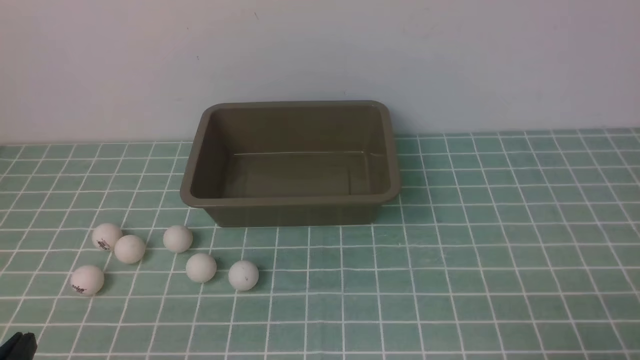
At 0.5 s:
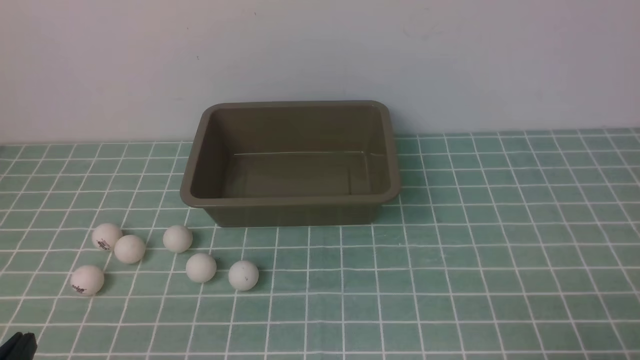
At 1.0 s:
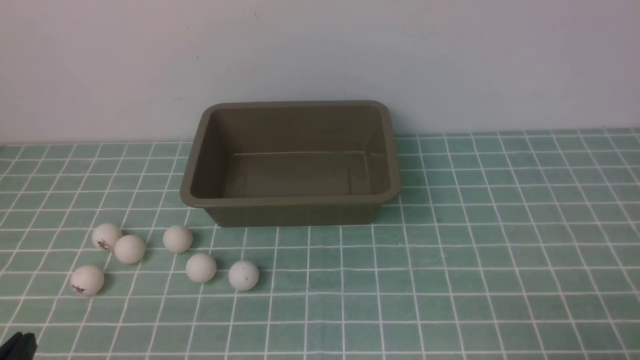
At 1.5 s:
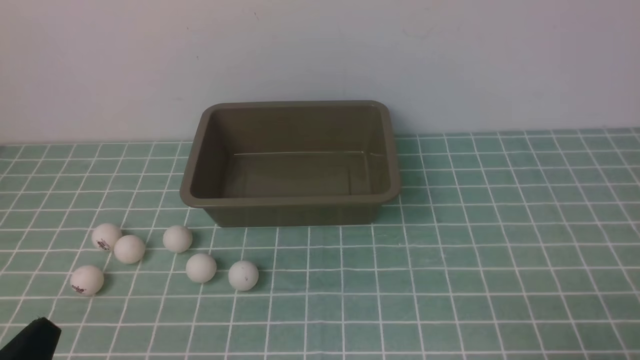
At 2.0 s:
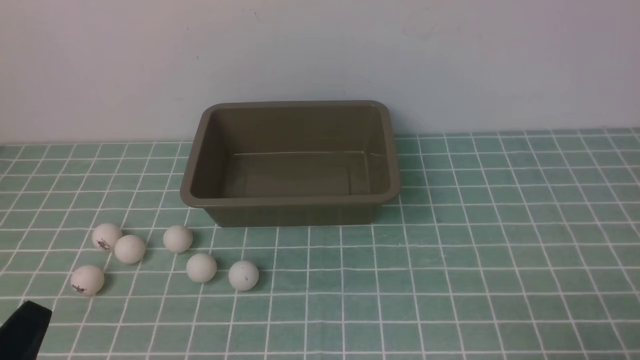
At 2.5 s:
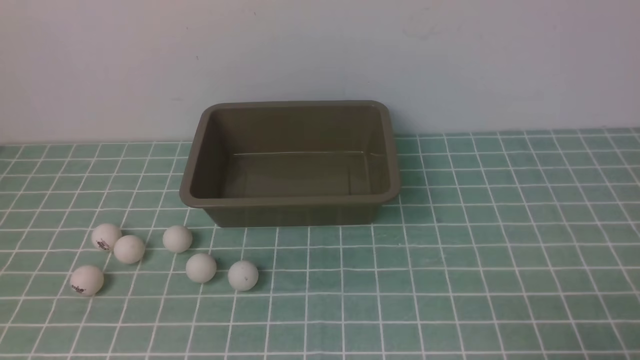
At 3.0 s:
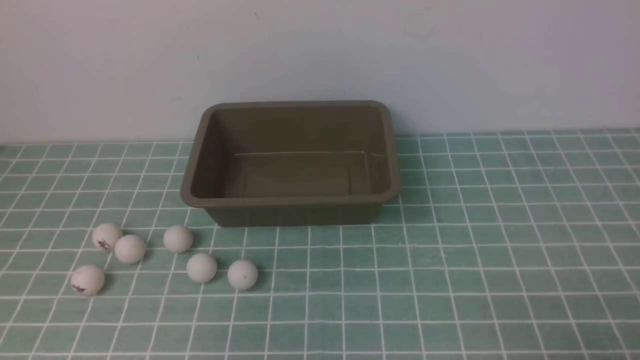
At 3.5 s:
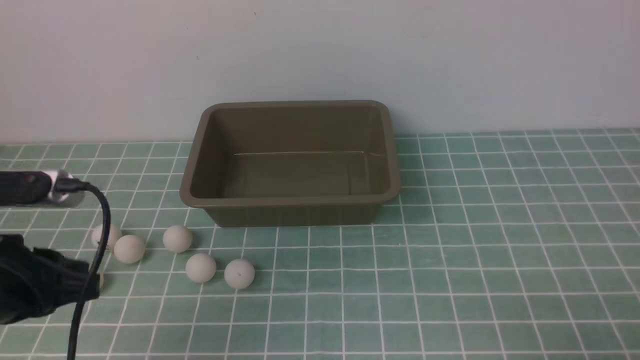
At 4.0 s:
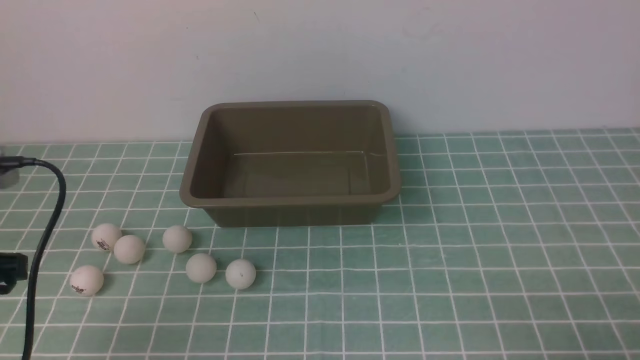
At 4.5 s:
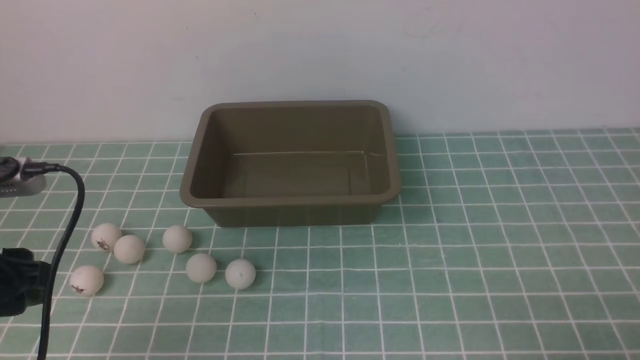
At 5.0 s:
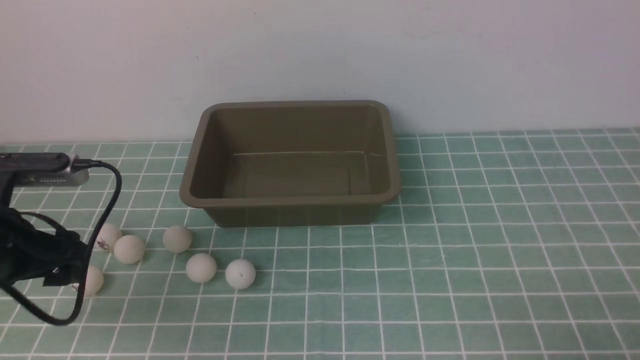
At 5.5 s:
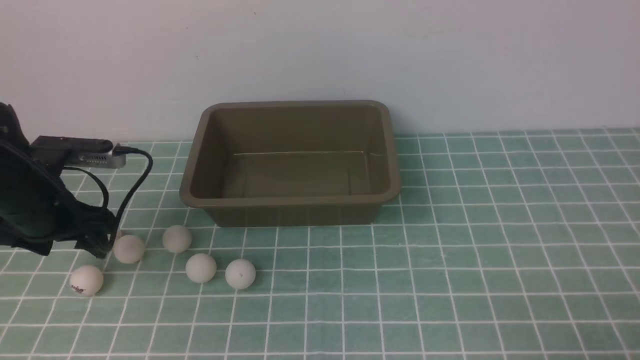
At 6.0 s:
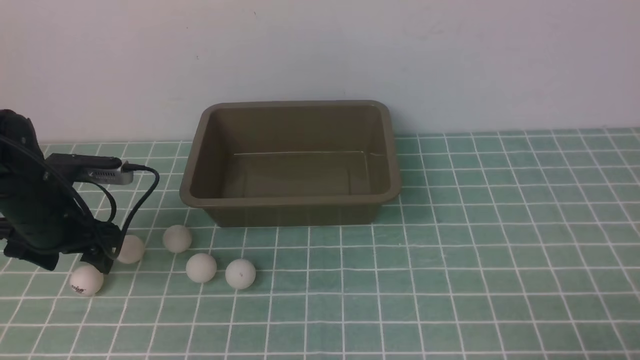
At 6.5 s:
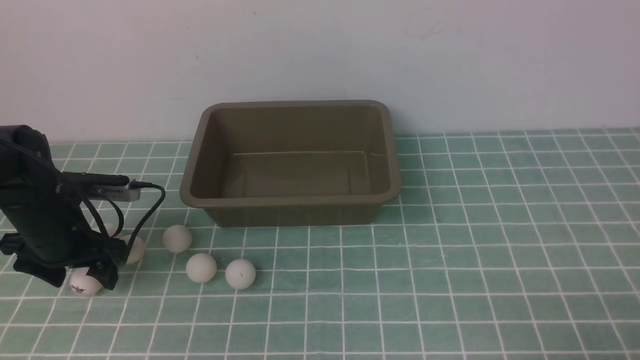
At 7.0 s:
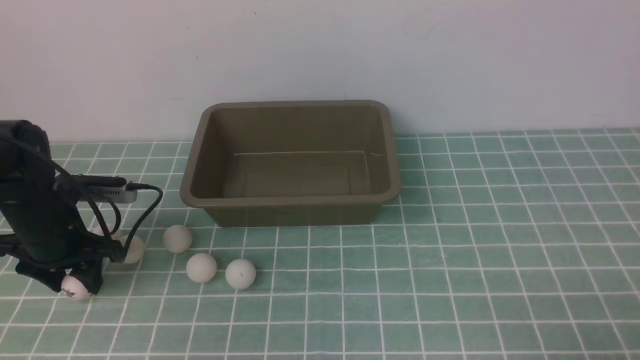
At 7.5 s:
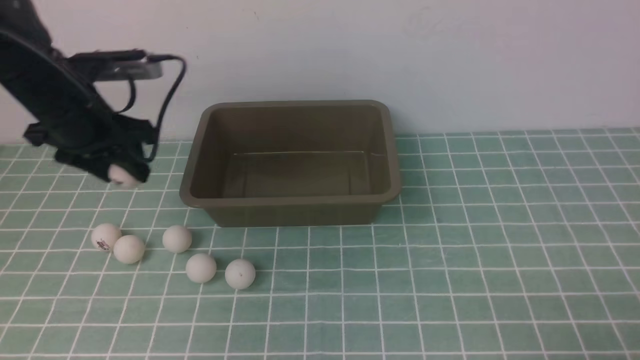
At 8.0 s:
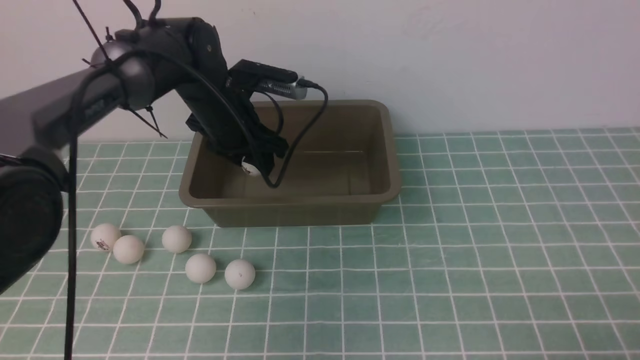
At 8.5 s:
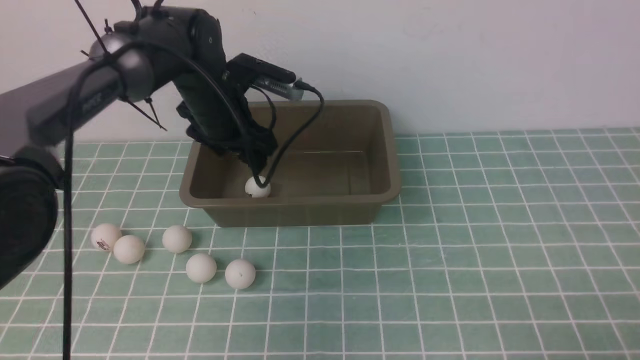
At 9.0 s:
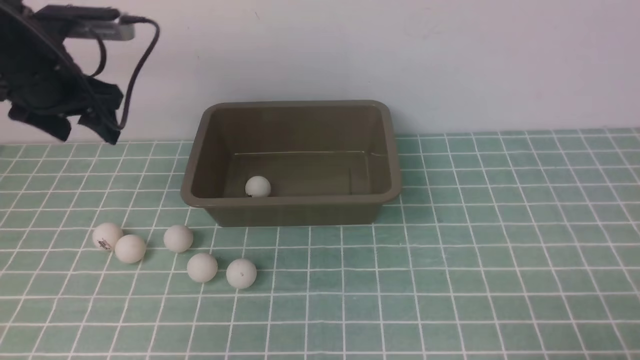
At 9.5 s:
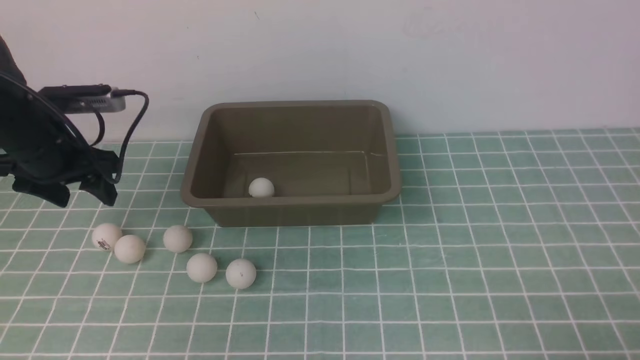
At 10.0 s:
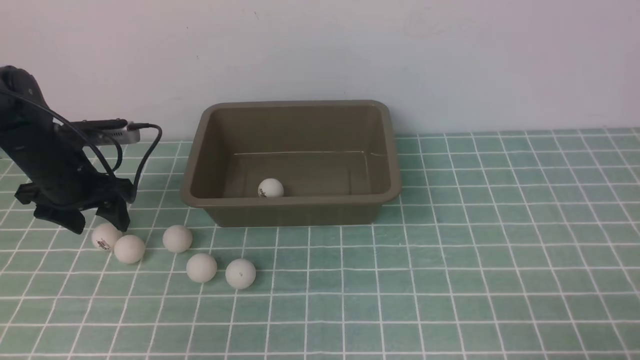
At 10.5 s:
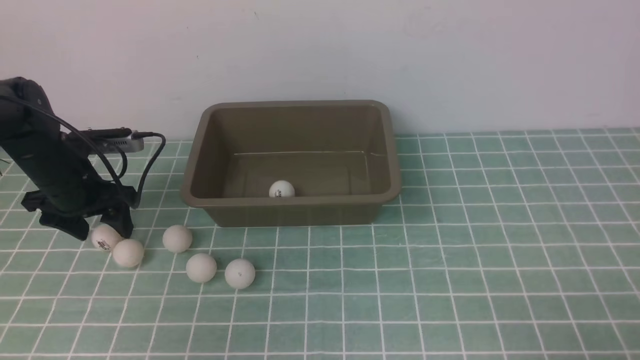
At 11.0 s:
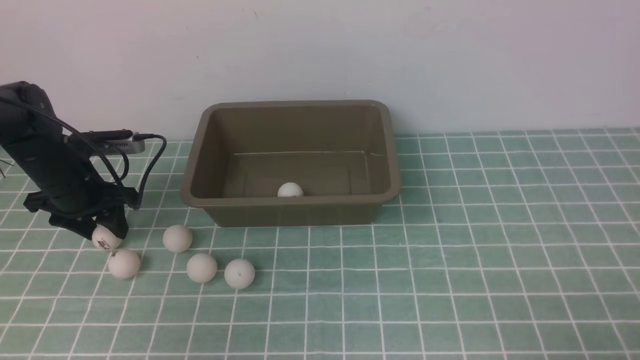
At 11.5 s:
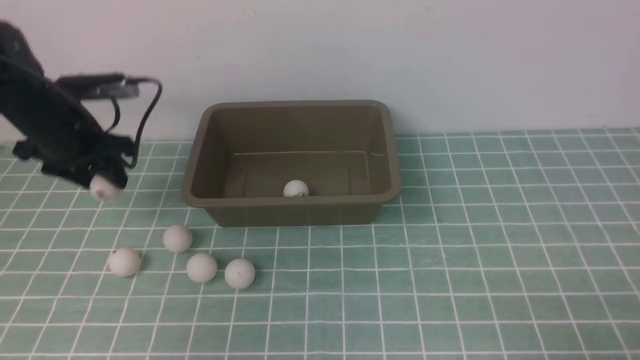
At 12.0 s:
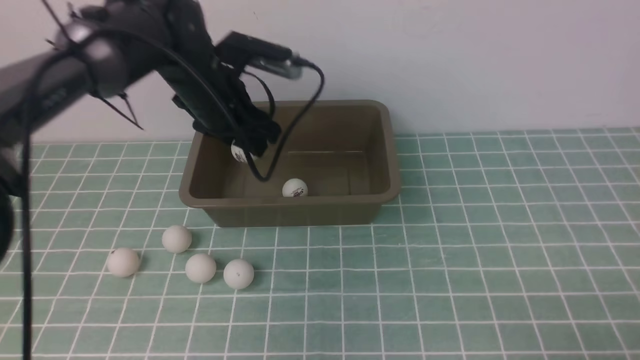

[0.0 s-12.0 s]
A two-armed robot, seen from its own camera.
Step, 0.0 to 7.0 s: use the left arm to clamp the table tennis ball closest to it.
Step, 7.5 to 8.0 s: use the left arm to put the table tennis ball into the box.
Step, 8.5 to 11.5 s: use the left arm to clamp the table tennis ball closest to it.
2.0 to 4.0 s: The left gripper is displaced forward, upward and to the left by approximately 15 cm.
4.0 to 6.0 s: The left gripper is displaced forward and downward by approximately 20 cm, and opens.
6.0 to 8.0 s: The left gripper shifts some 20 cm to the right and forward.
8.0 to 10.0 s: The left gripper goes about 20 cm to the left.
10.0 to 12.0 s: The left gripper shifts about 20 cm to the right and upward.

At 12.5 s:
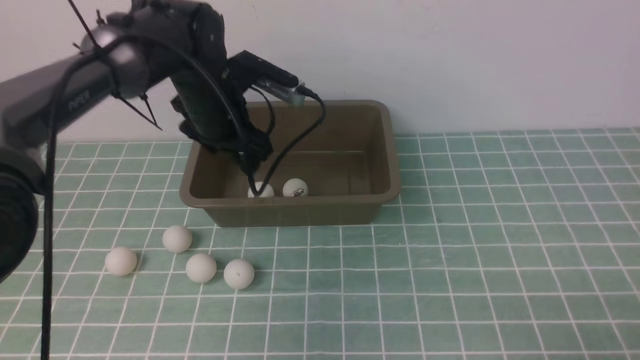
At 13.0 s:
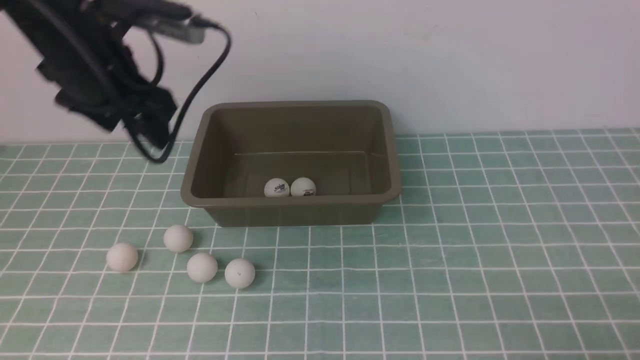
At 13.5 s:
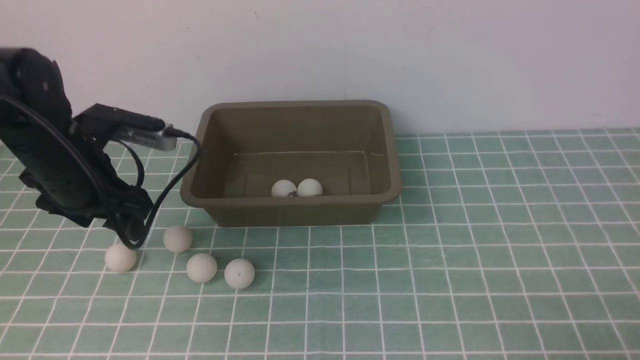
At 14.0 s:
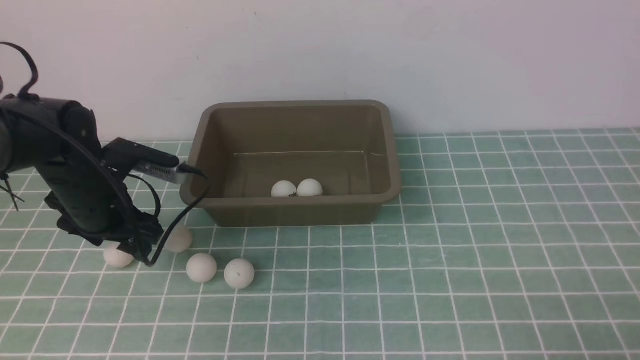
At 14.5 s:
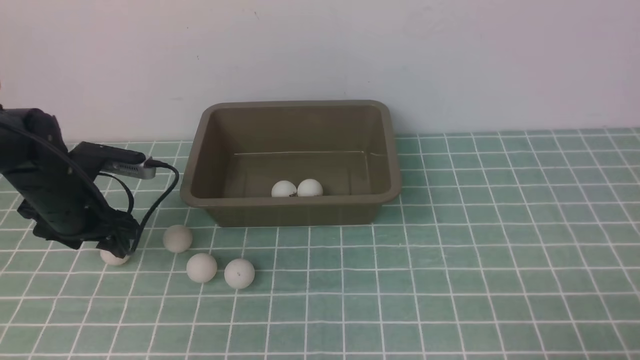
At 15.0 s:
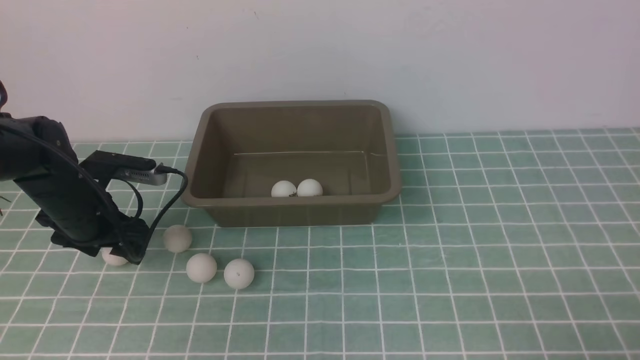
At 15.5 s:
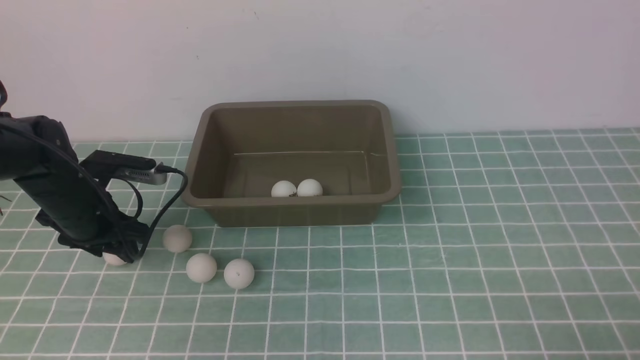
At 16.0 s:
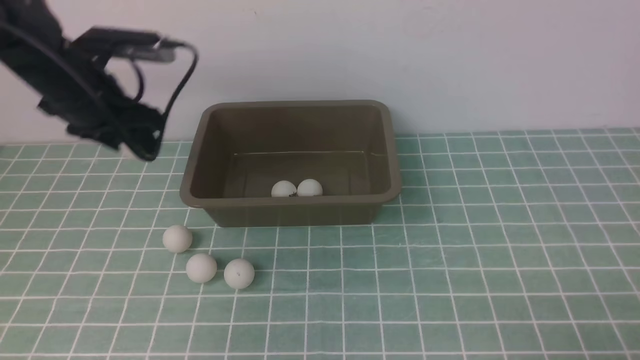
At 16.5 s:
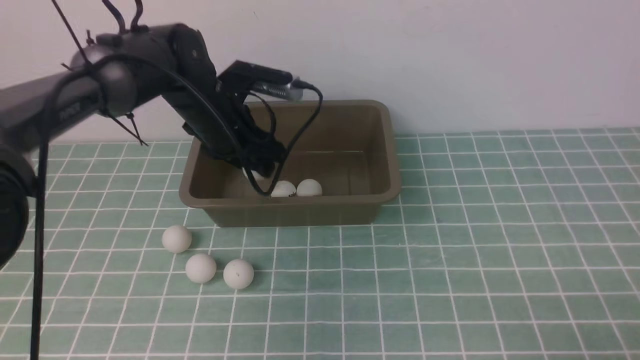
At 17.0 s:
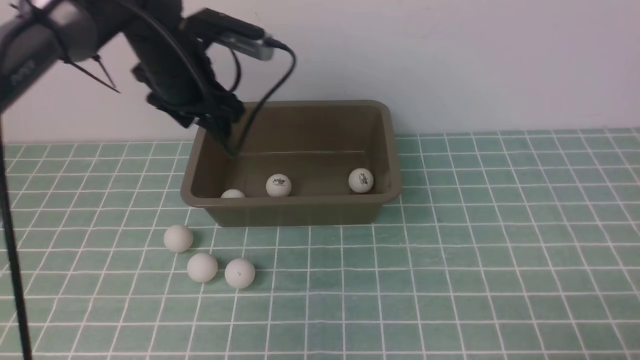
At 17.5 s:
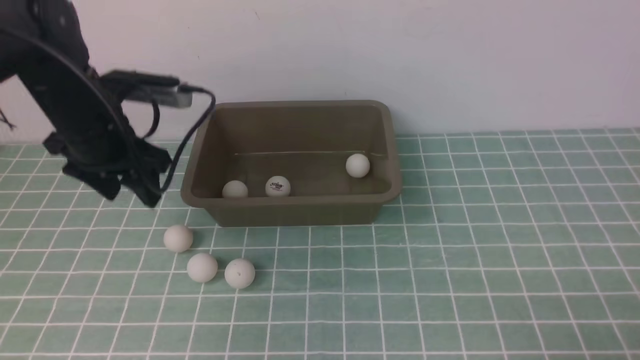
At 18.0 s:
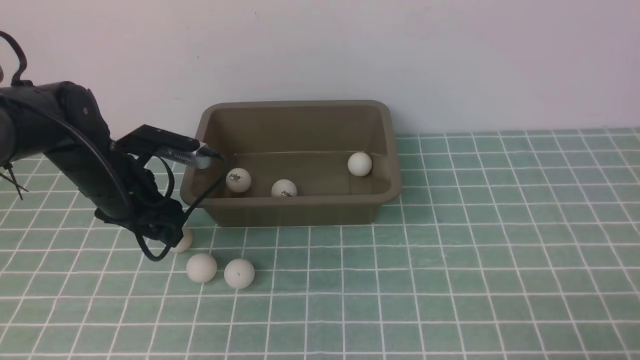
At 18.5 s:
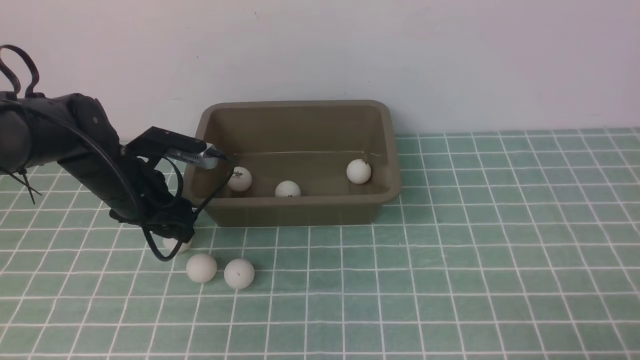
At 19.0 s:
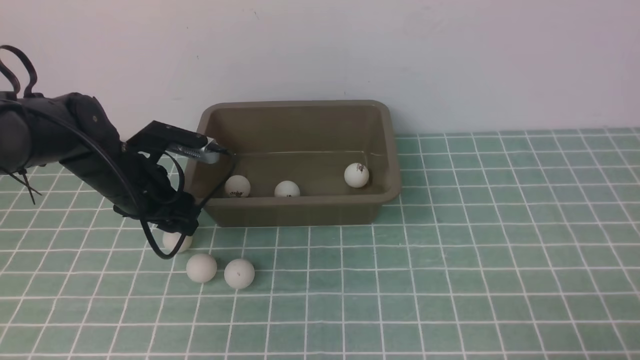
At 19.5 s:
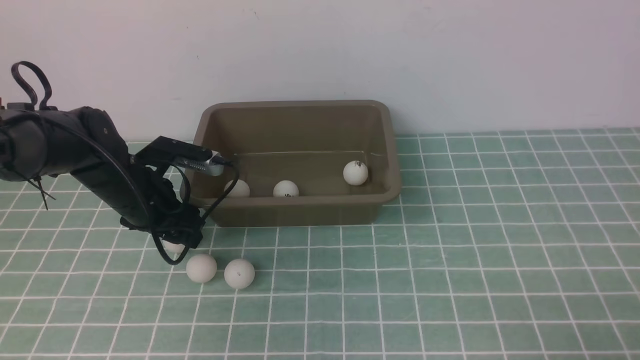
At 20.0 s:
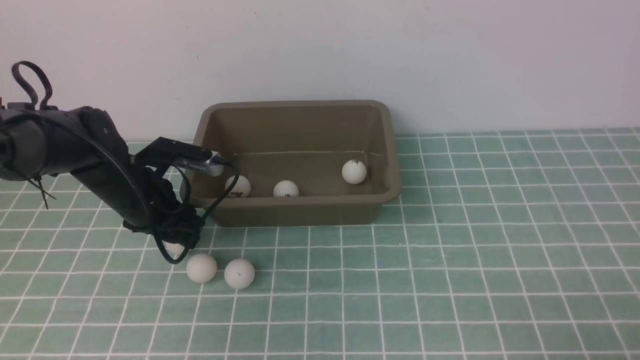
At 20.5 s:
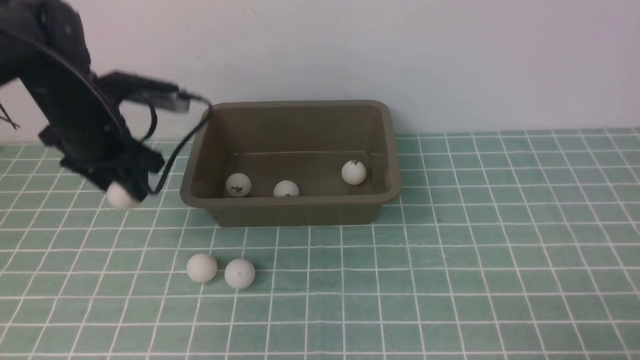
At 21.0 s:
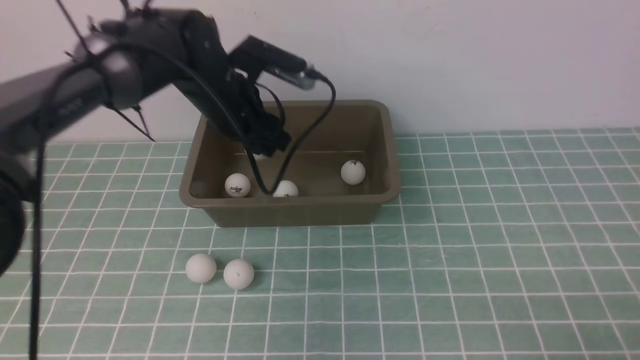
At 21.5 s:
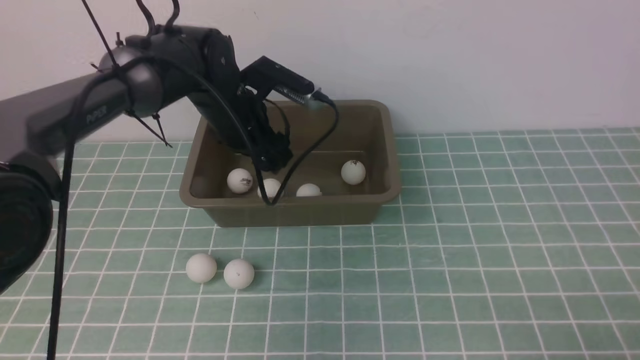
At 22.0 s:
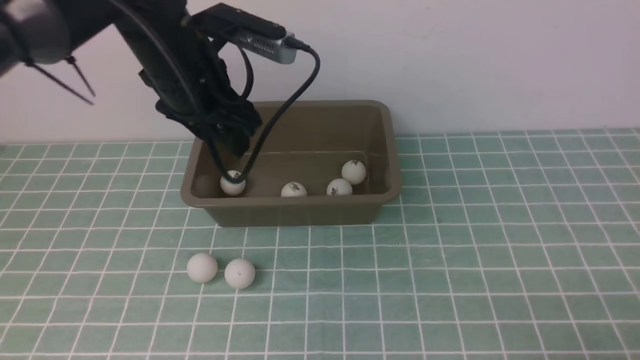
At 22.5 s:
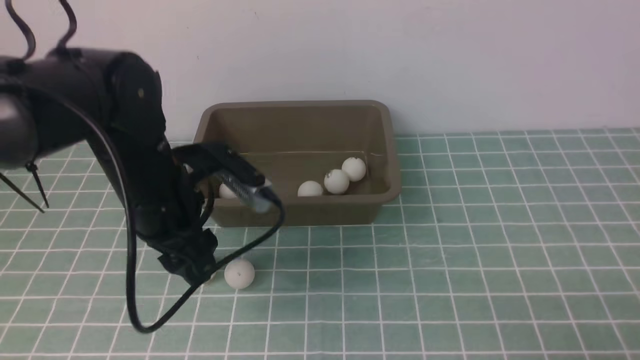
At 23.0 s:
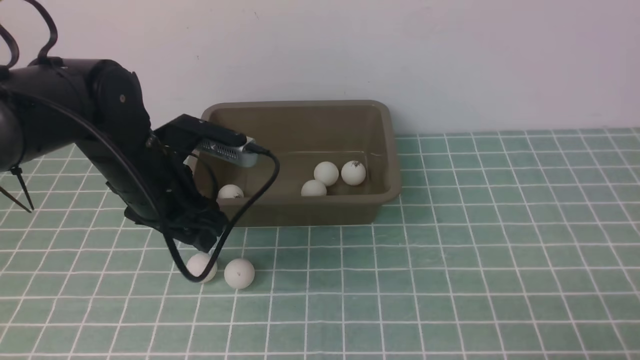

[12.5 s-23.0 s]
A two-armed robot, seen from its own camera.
Step, 13.0 to 15.5 s: use the left arm to clamp the table tennis ball closest to it.
Step, 16.0 to 16.5 s: use the left arm to put the table tennis ball into the box.
Step, 17.0 to 20.0 s: use the left arm to clamp the table tennis ball closest to it.
Step, 20.5 to 21.5 s: use the left arm to put the table tennis ball into the box.
12.5 to 14.5 s: The left gripper travels to the left, downward and backward by approximately 20 cm.
14.5 to 16.5 s: The left gripper heads to the right, upward and forward, covering about 20 cm.
16.5 to 19.0 s: The left gripper travels downward, to the left and backward by some 15 cm.
19.0 to 21.0 s: The left gripper goes about 15 cm to the right, upward and forward.
21.0 to 23.0 s: The left gripper moves backward and to the left, roughly 15 cm.
